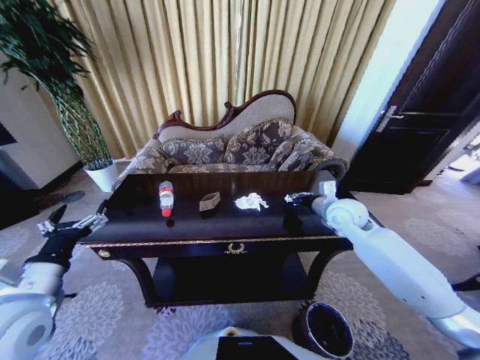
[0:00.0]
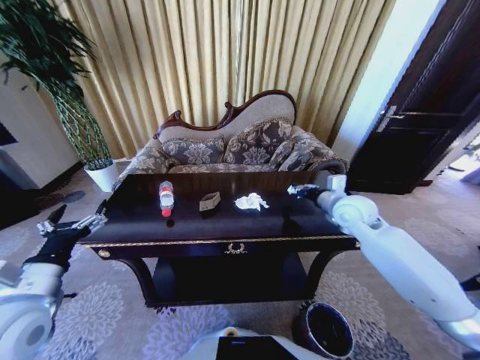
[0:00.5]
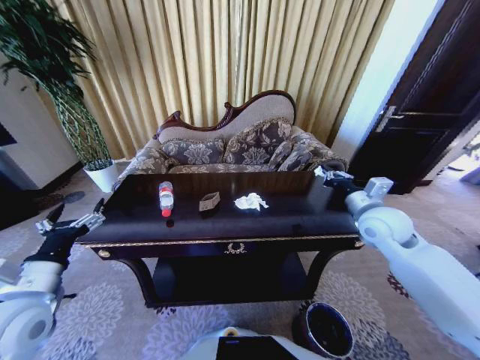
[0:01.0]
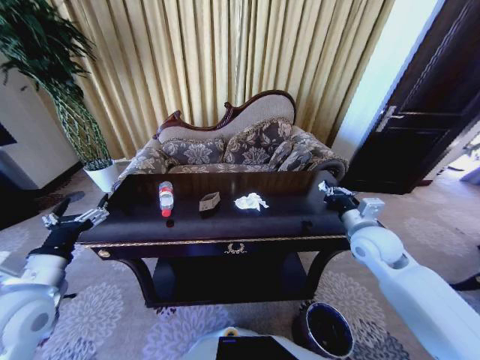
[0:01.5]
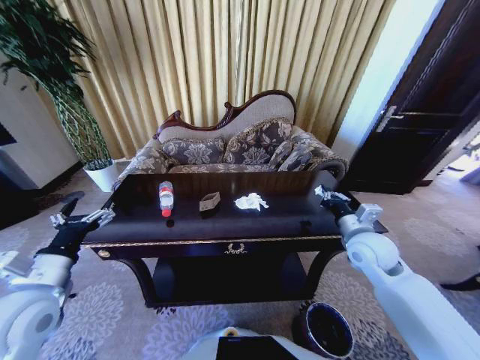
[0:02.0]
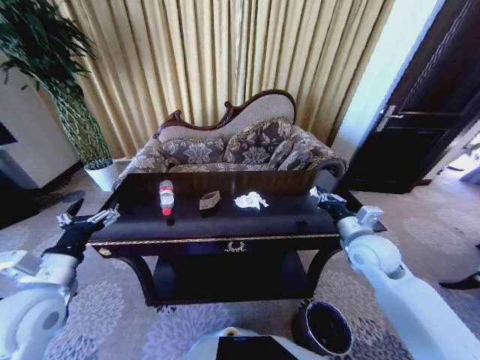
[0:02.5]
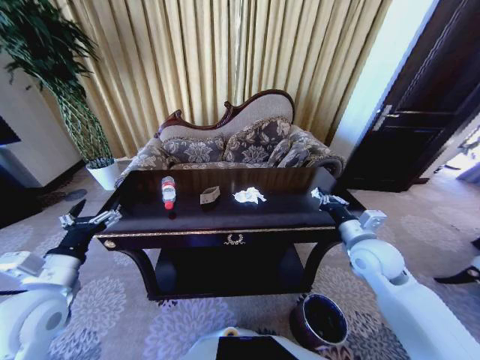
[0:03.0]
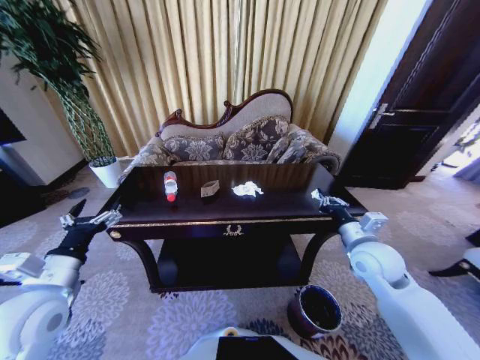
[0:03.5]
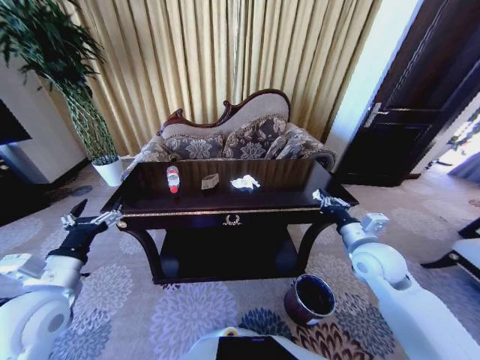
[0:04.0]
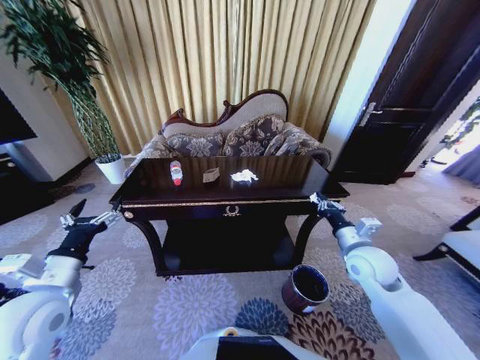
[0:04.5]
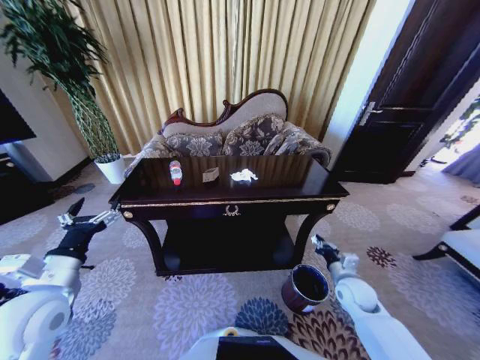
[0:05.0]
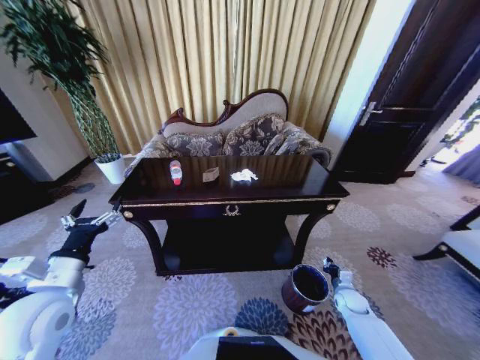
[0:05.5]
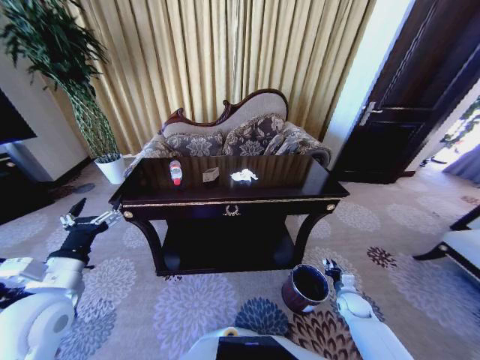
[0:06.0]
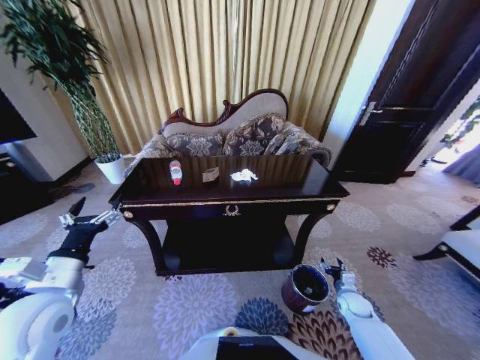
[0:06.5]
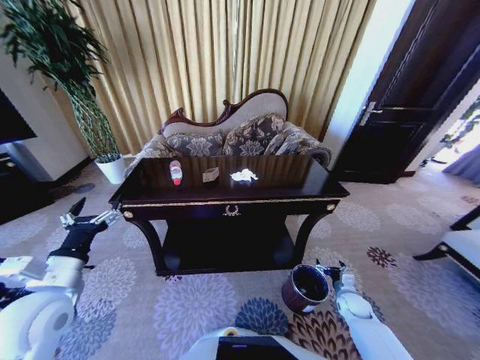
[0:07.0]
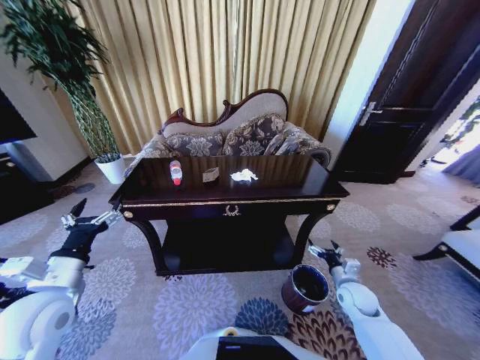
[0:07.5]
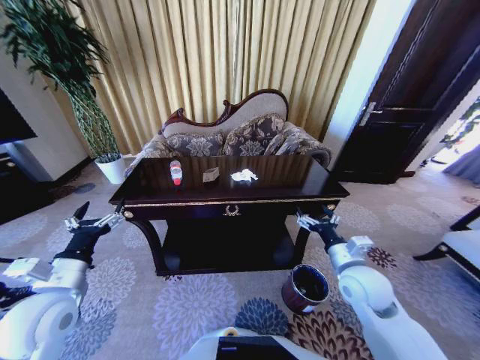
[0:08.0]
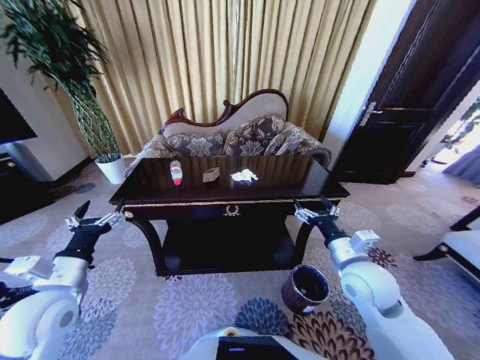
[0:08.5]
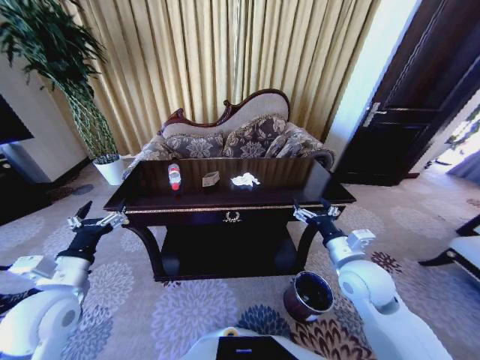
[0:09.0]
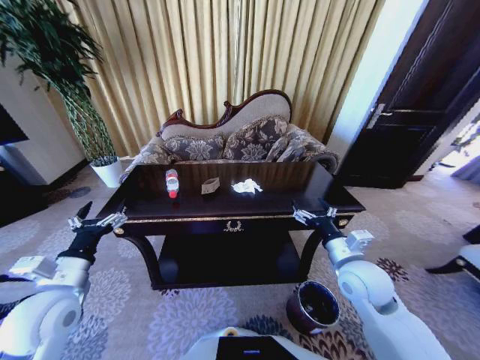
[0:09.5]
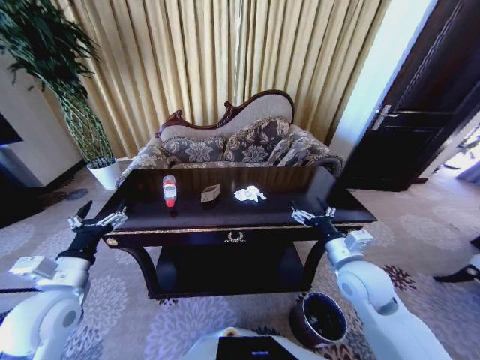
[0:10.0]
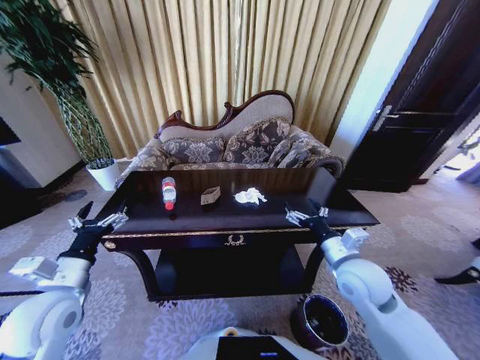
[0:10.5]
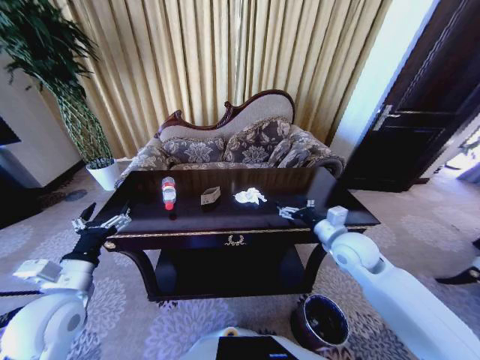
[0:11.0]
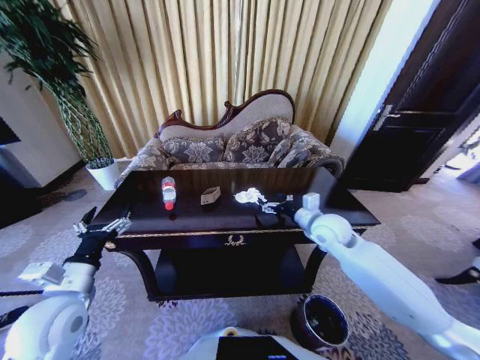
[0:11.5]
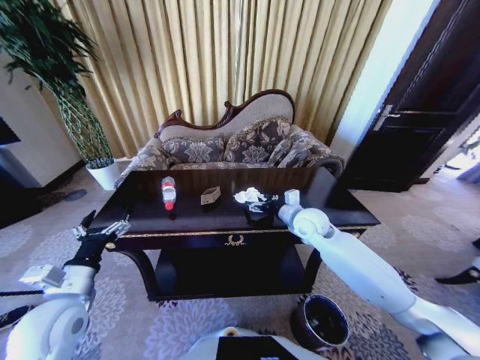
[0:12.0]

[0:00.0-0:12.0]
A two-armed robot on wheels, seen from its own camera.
Task of the whole recording: Move to the front of the table and place the trash on the table into the trash bin.
0:00.0 to 0:02.0: The right gripper shifts roughly 10 cm backward.
0:04.0 to 0:06.0: The right gripper moves downward, approximately 30 cm.
0:06.0 to 0:08.0: The right gripper shifts roughly 30 cm upward and to the left, and opens up.
0:10.0 to 0:12.0: The right gripper shifts about 15 cm forward.

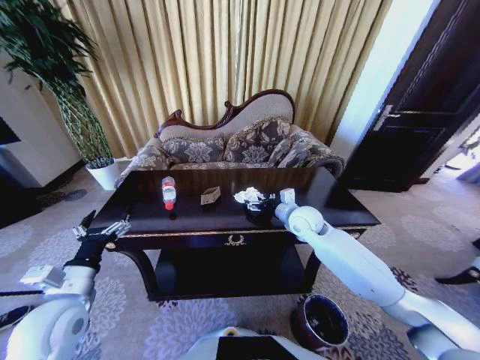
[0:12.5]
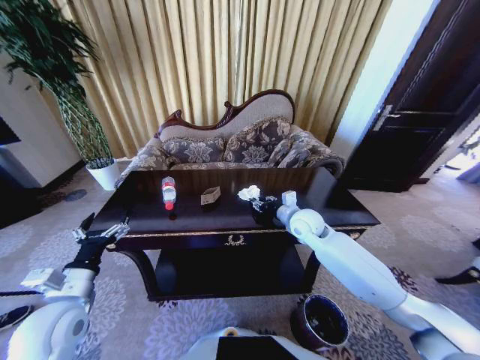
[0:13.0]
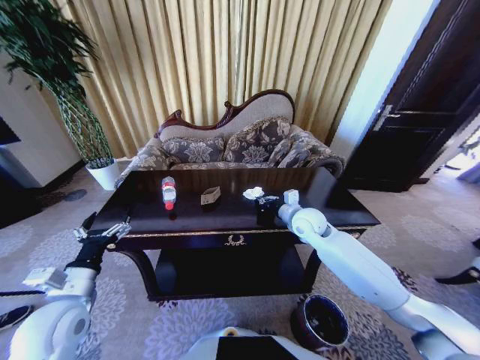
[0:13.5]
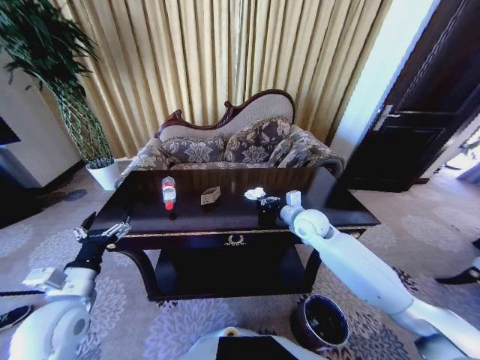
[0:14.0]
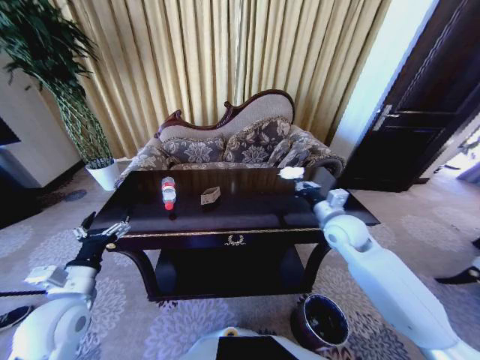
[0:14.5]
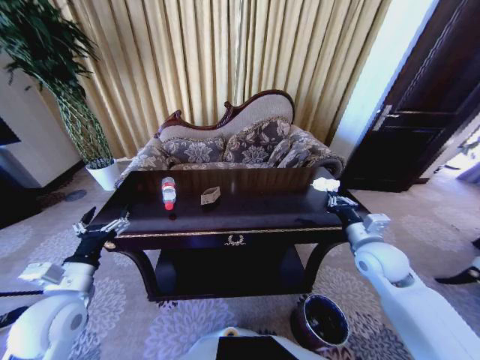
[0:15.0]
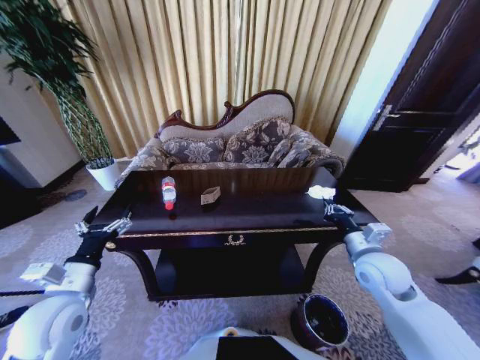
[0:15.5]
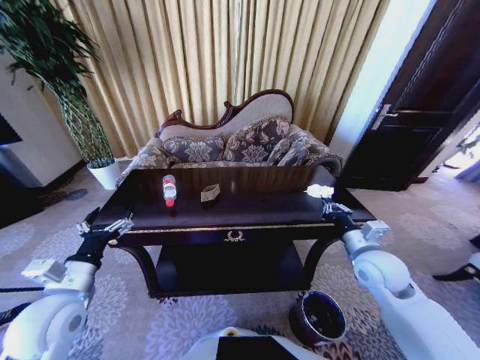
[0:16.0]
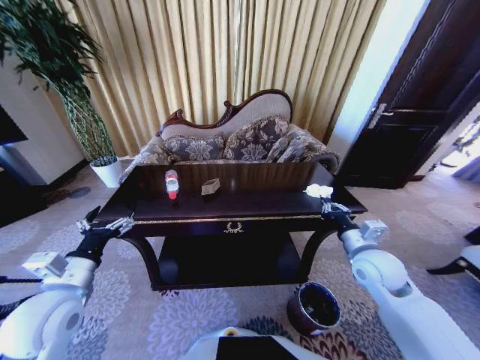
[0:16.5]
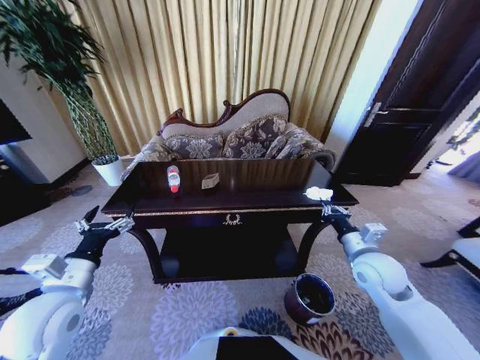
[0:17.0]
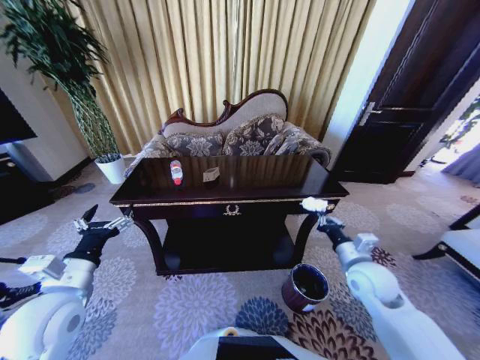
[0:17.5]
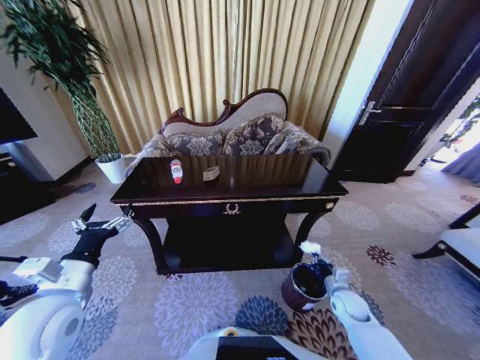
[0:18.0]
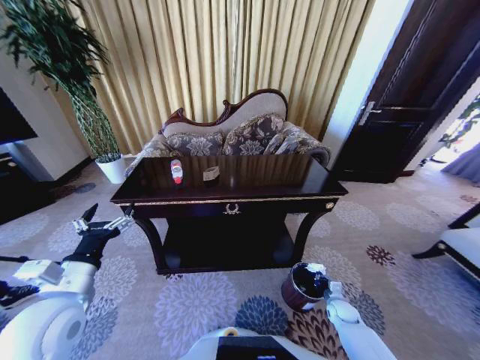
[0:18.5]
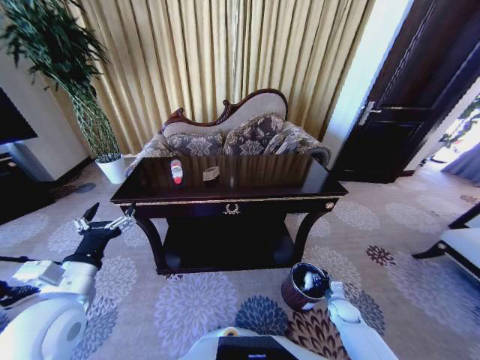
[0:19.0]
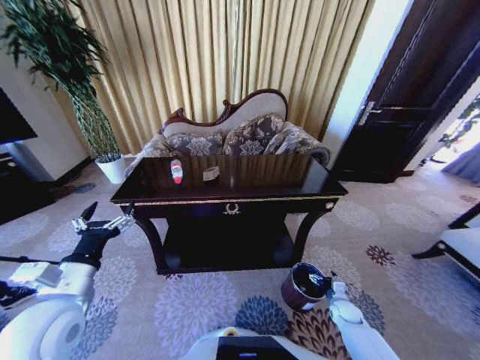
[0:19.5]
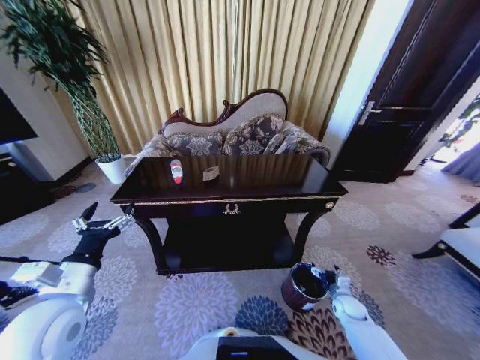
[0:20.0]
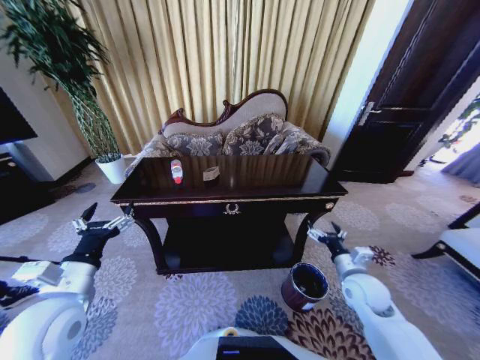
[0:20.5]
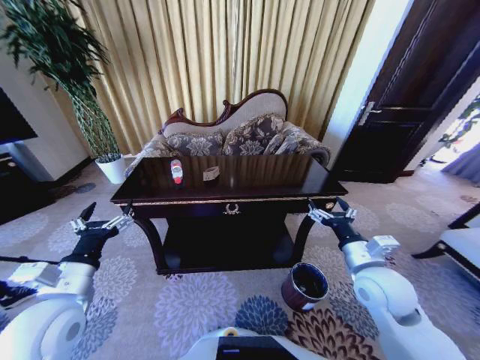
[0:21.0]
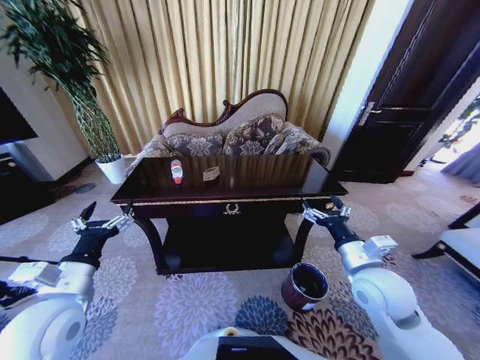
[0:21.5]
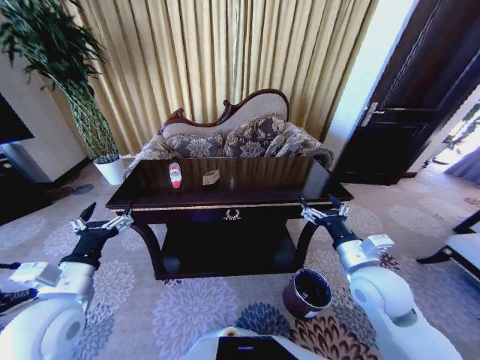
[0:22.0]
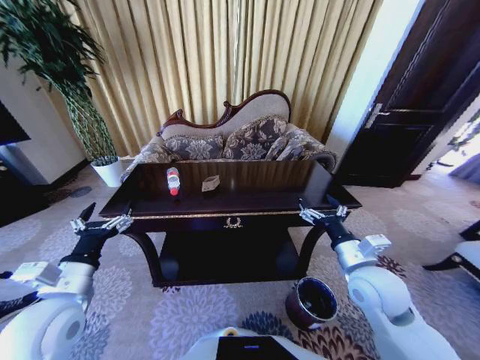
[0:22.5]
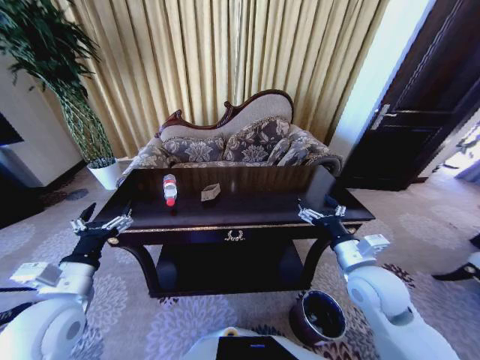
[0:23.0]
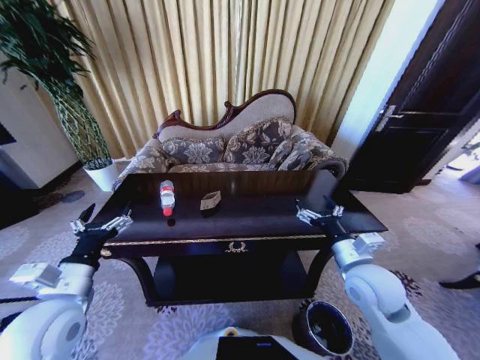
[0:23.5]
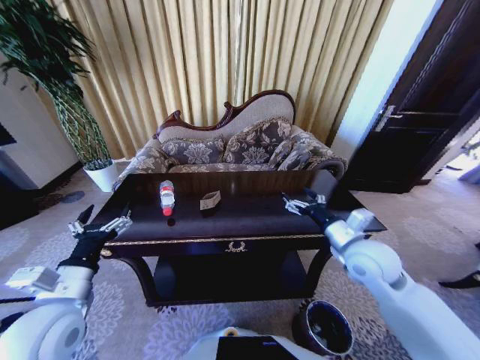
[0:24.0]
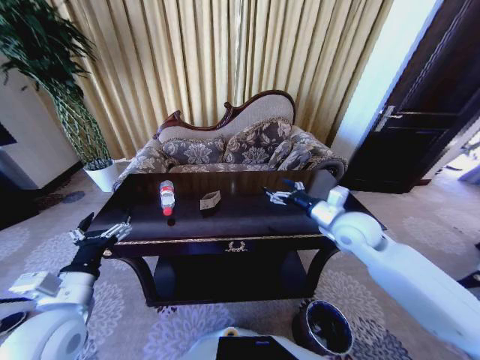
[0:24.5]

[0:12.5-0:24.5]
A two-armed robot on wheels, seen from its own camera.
Task of the whole recording: Move to the front of the table and place the trash on the table into the trash bin.
0:12.5 to 0:14.5: The right gripper travels to the right and backward by roughly 10 cm, and closes up.
0:14.5 to 0:16.5: The right gripper travels backward by roughly 10 cm.
0:16.5 to 0:18.5: The right gripper travels downward by some 35 cm.
0:18.5 to 0:20.5: The right gripper is displaced upward by approximately 25 cm, and opens.
0:20.5 to 0:22.5: The right gripper shifts roughly 15 cm upward and to the left.
0:22.5 to 0:24.5: The right gripper travels forward by some 10 cm.

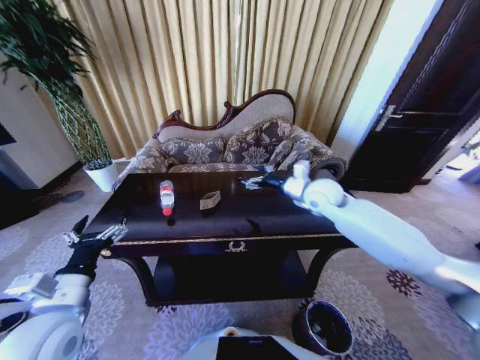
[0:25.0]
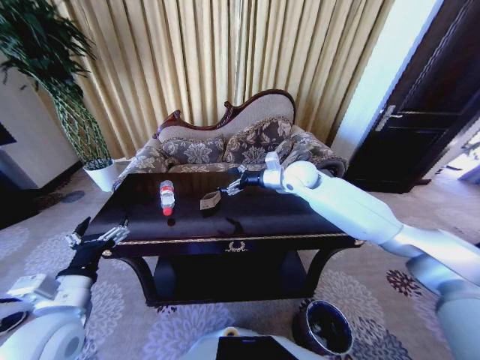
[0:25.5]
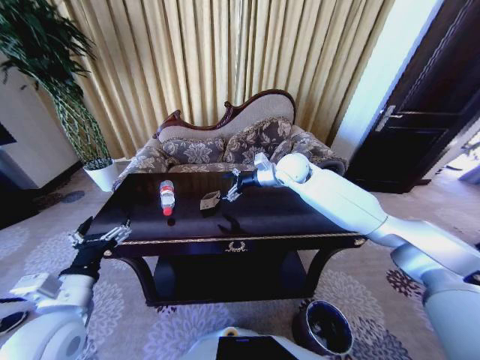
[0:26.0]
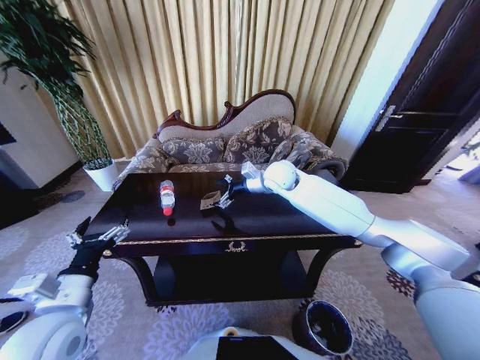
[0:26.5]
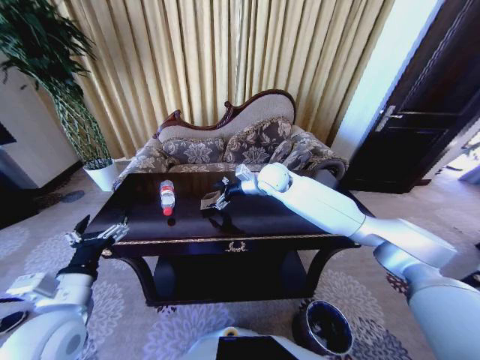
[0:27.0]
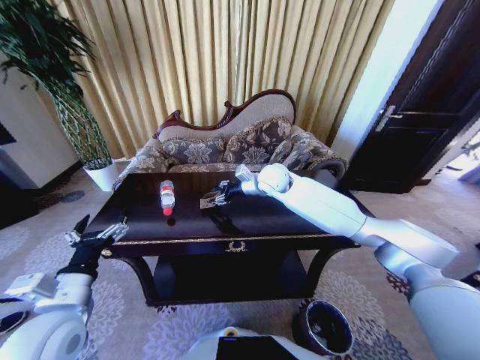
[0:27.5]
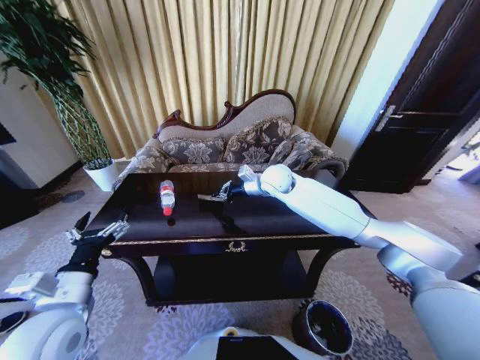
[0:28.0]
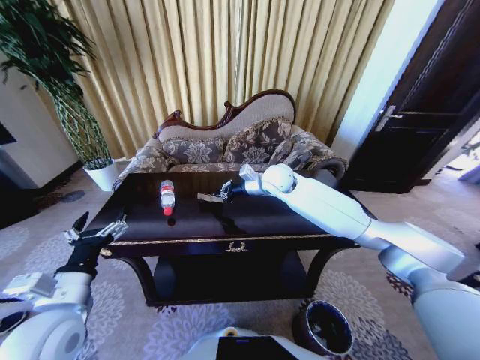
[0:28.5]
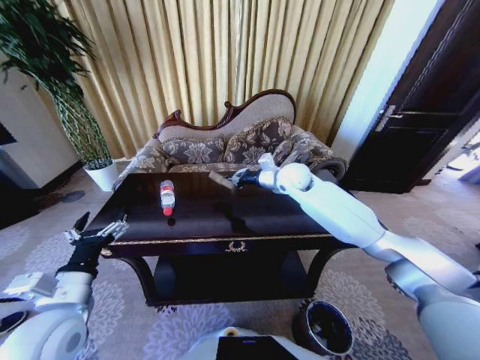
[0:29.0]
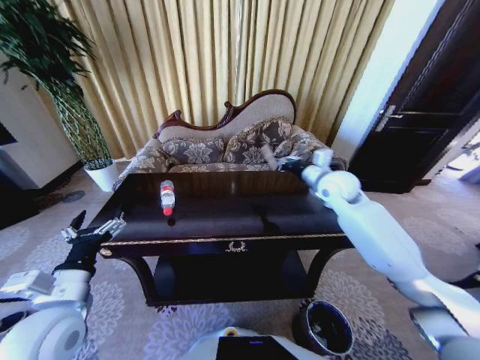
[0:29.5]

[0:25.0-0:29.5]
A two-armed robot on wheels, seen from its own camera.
Task of the whole recording: Move to the front of the table and place the trash on the table into the trash bin.
0:25.0 to 0:27.0: The right gripper shifts about 15 cm to the left and forward.
0:27.0 to 0:29.5: The right gripper moves to the right, roughly 15 cm, and closes up.
